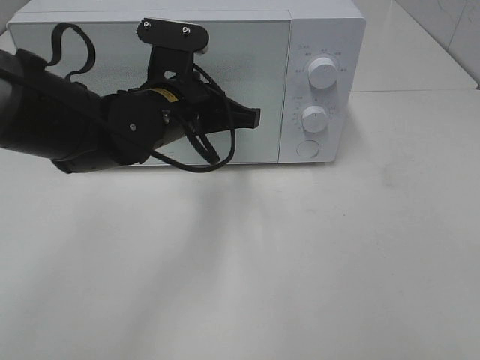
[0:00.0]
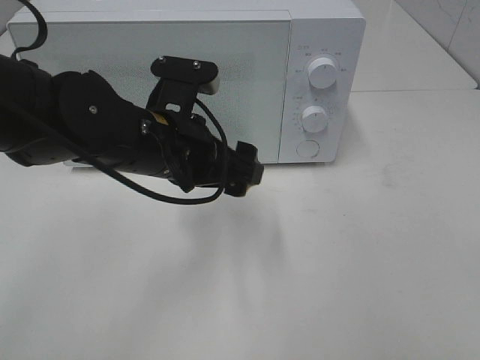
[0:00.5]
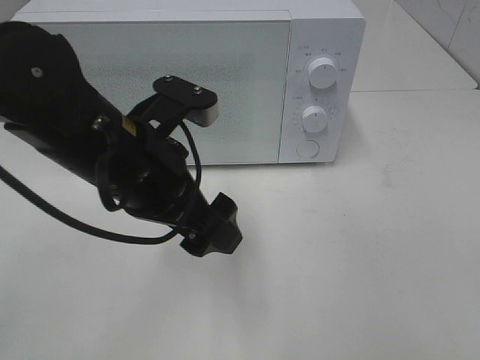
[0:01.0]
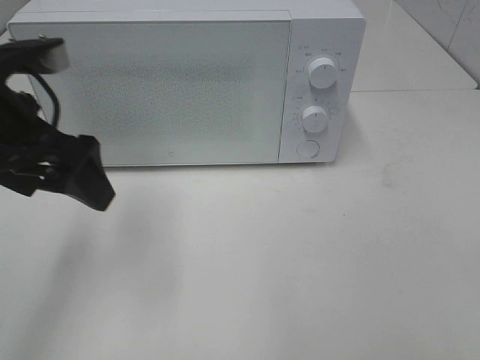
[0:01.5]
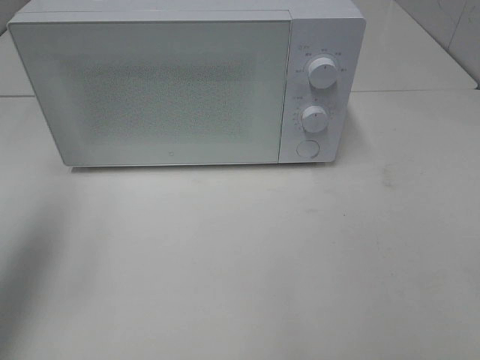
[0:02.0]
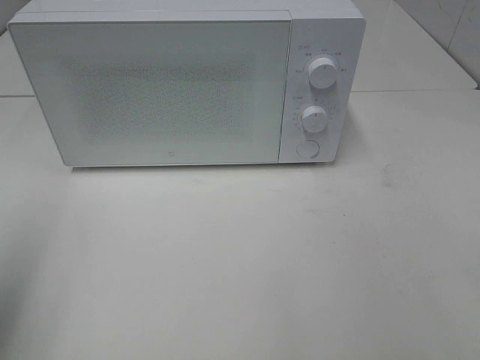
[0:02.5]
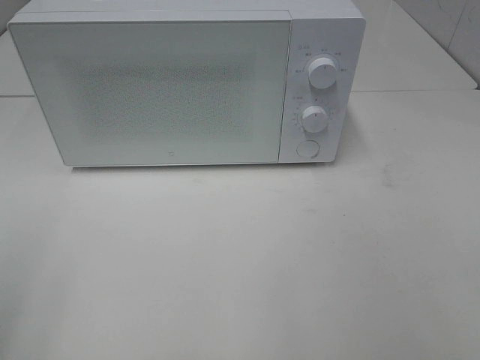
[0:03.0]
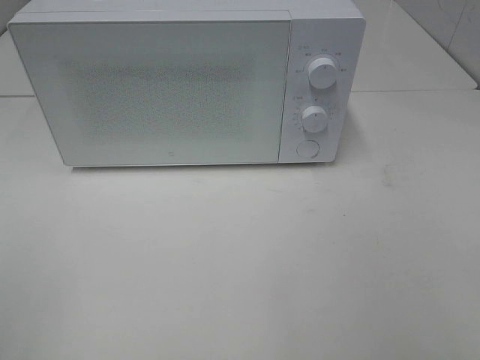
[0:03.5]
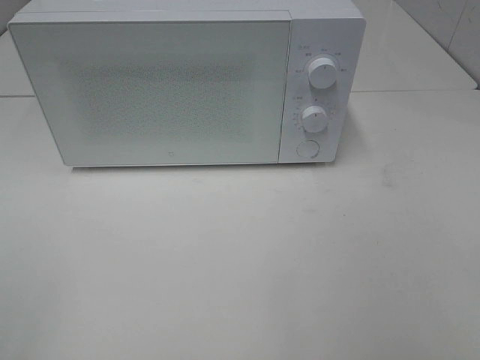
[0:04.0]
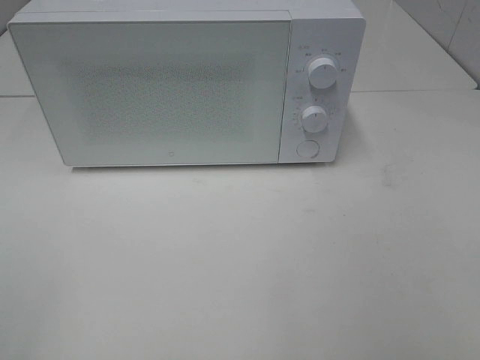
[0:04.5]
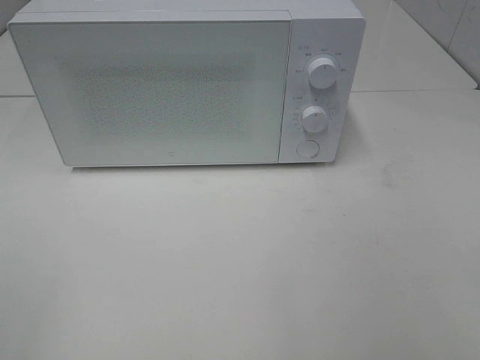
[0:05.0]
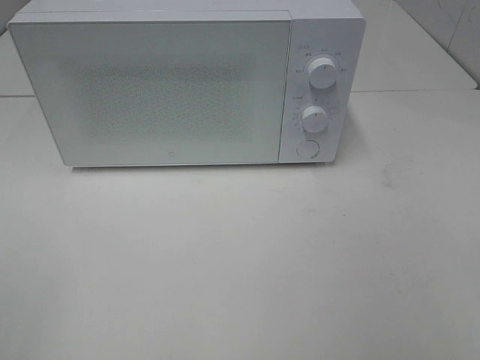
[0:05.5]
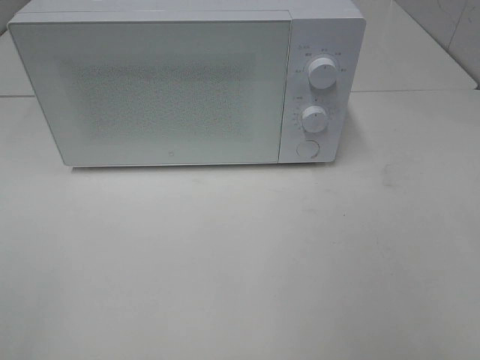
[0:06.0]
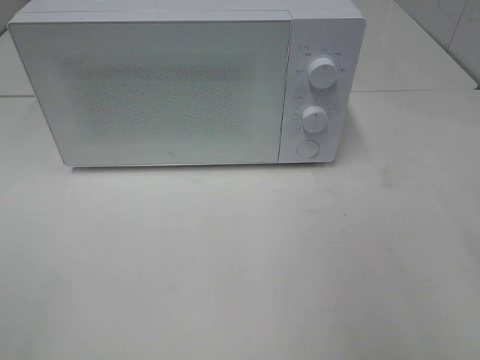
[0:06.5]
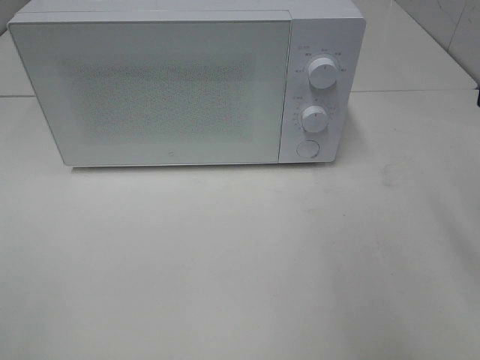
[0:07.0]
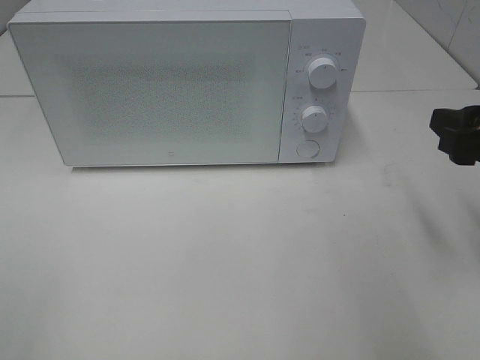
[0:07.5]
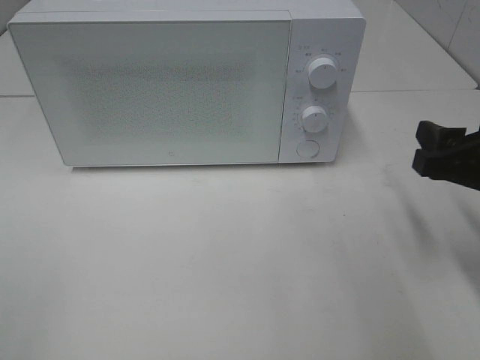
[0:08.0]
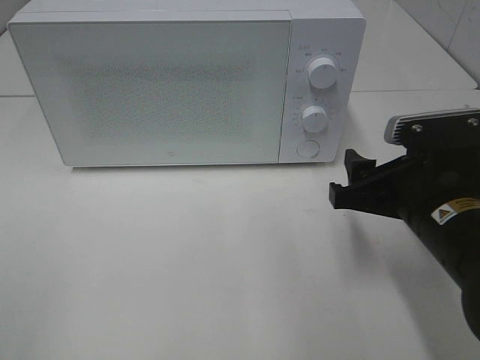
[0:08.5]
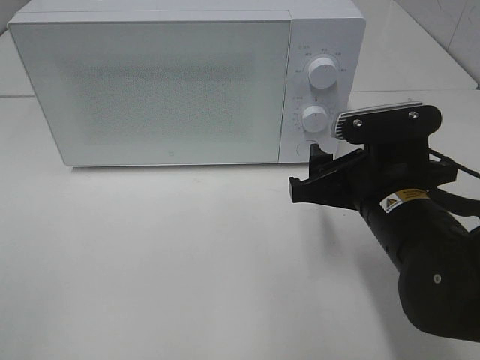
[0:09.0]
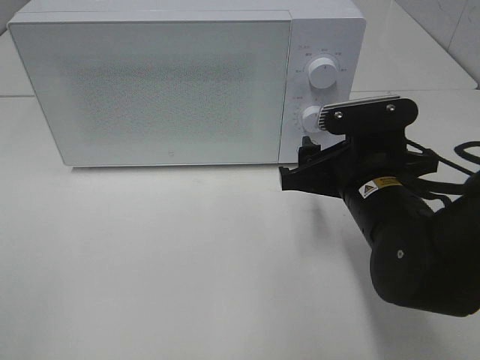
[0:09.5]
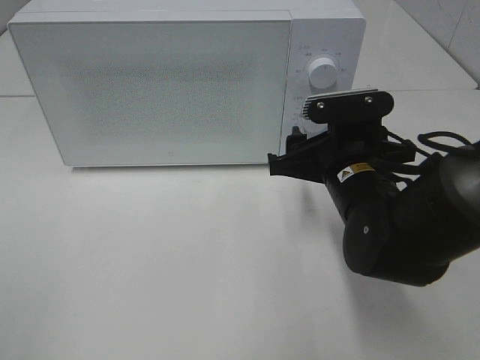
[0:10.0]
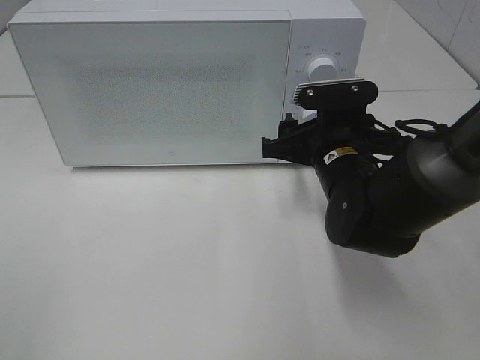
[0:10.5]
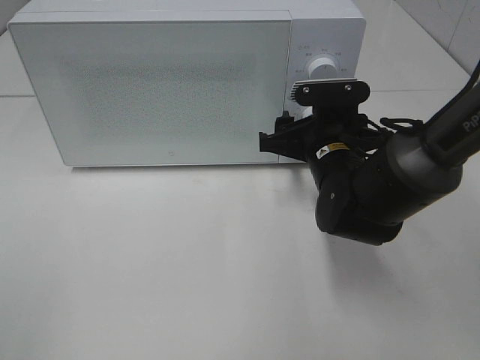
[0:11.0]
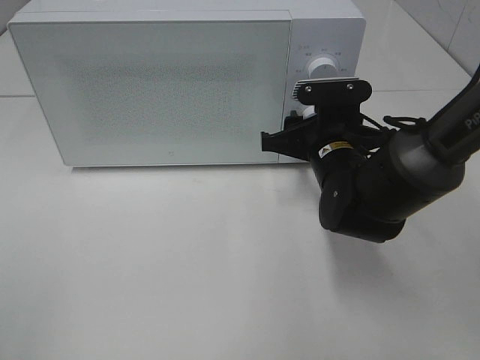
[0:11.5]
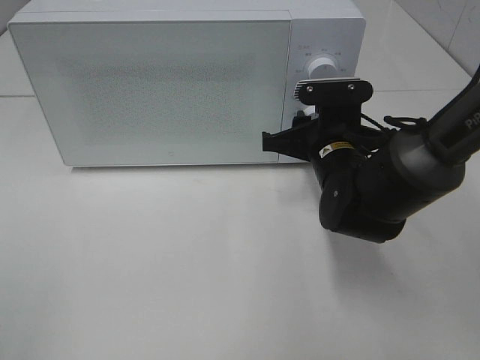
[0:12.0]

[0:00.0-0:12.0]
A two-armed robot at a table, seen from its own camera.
Task of the whole recording: Heat the burger.
0:00.0 to 0:02.0: The left gripper moves to the left, upward and backward, about 30 cm, and opens.
0:02.0 to 0:04.0: The left gripper is displaced backward by approximately 20 cm.
0:06.0 to 0:08.0: The right gripper travels forward and downward by roughly 20 cm.
0:08.0 to 0:10.0: The right gripper is displaced to the left and forward by some 15 cm.
0:10.0 to 0:12.0: The right gripper shifts about 5 cm forward.

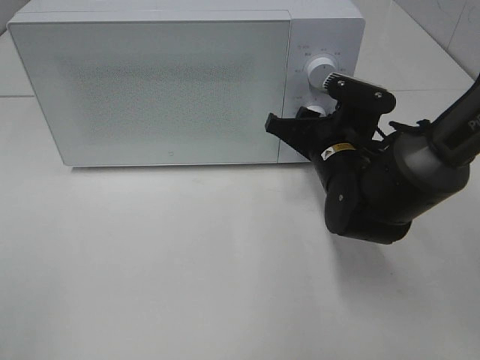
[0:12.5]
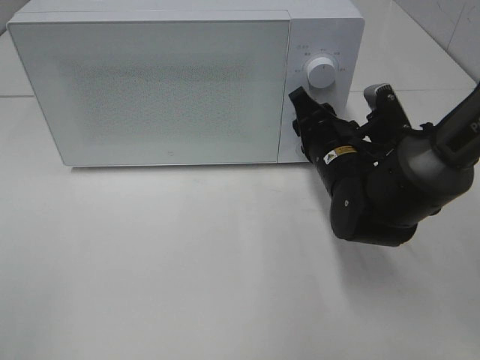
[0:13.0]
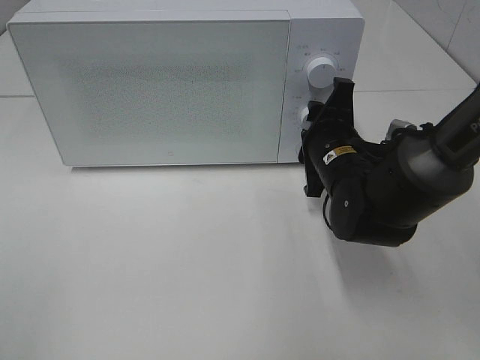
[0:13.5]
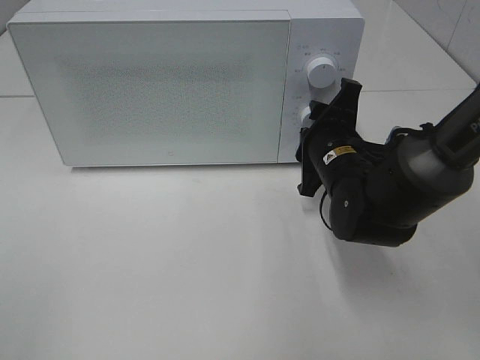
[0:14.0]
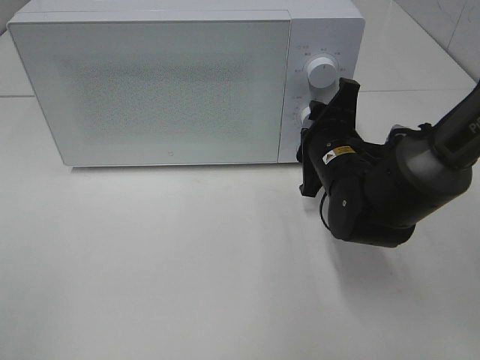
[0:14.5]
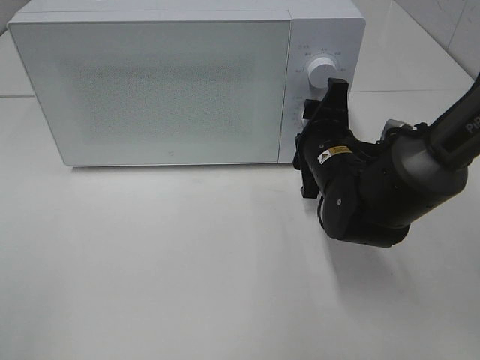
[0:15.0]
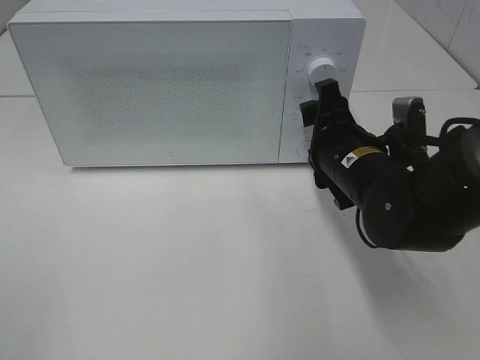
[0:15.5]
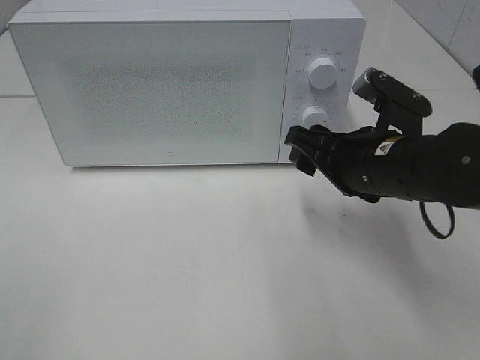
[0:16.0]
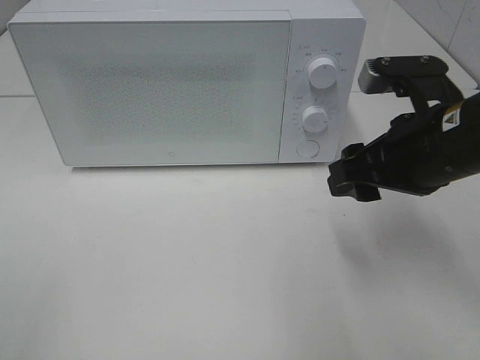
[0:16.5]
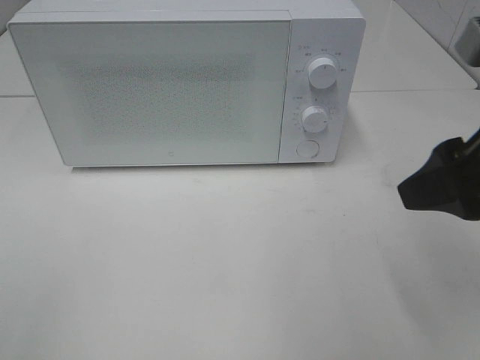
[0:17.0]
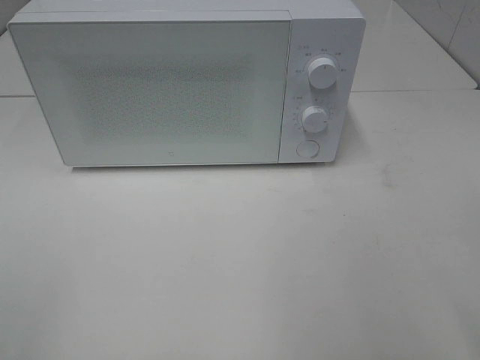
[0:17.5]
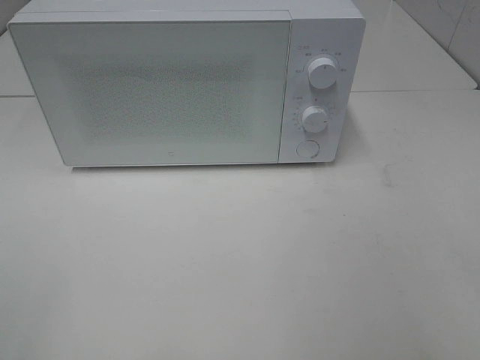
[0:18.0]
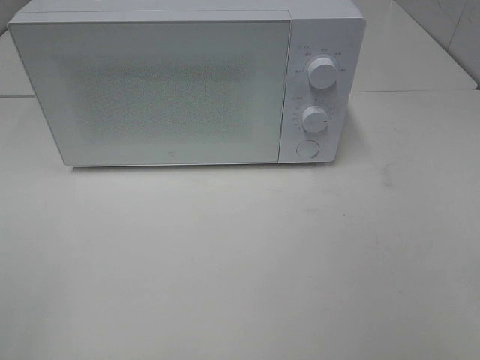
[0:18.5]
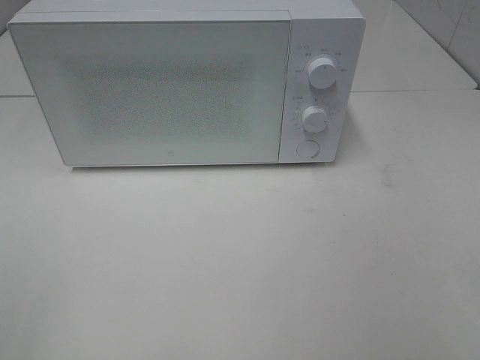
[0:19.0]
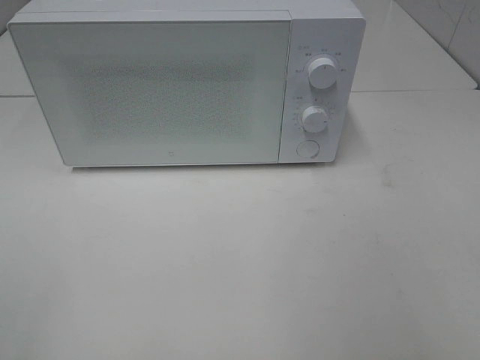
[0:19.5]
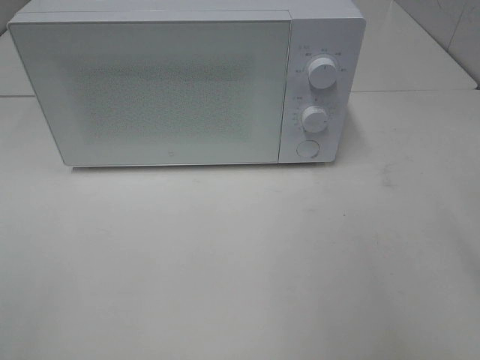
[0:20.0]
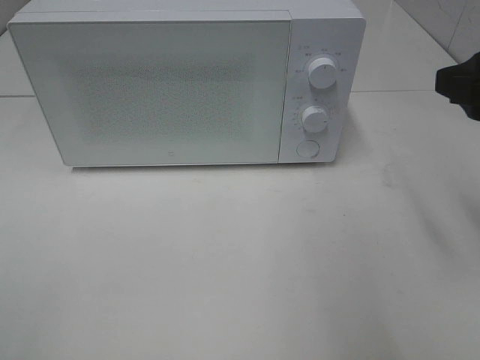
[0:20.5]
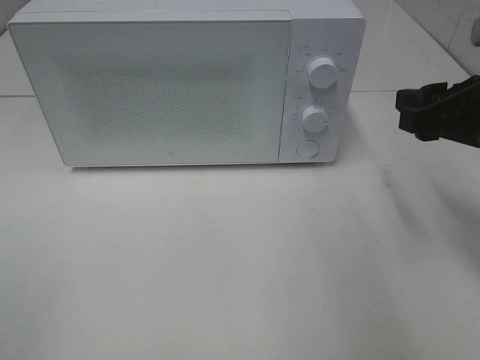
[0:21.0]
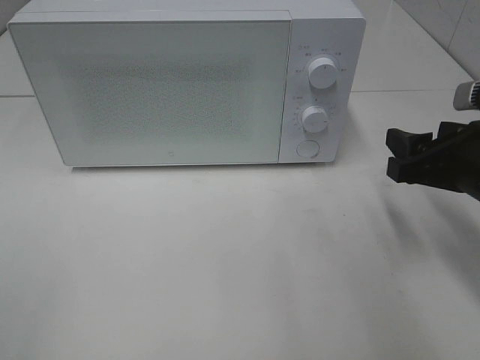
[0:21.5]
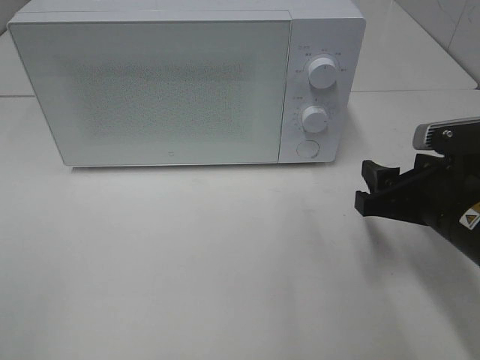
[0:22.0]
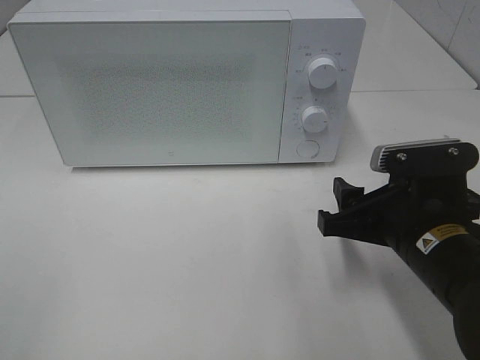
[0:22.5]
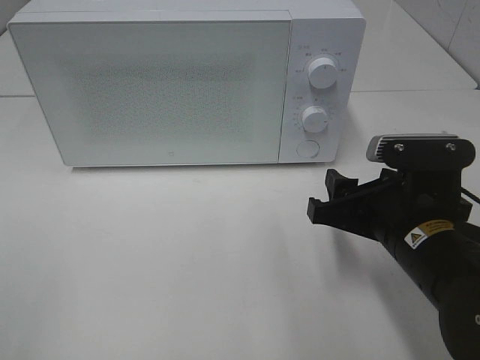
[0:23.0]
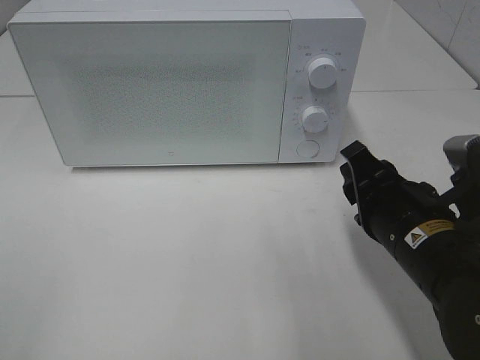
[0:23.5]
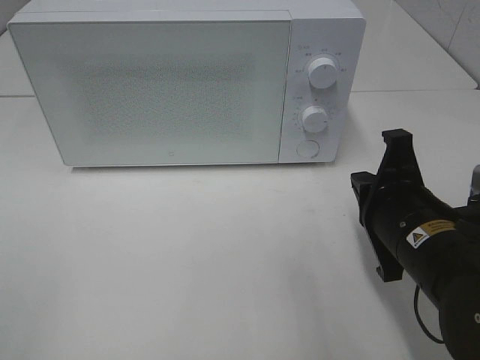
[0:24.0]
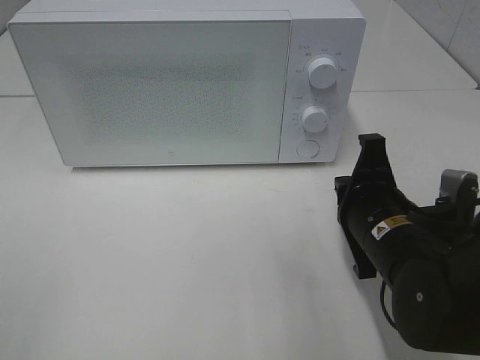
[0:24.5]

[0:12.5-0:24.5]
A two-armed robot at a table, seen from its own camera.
Task of the whole recording: Heat the burger.
Step, 0:12.5 to 0:15.0: Right hand: twist timer button.
0:14.5 to 0:16.5: The right gripper is displaced upward, backward and to the right by approximately 15 cm.
0:16.5 to 0:18.5: The right gripper moves backward and to the right, about 25 cm.
0:18.5 to 0:20.5: The right gripper is displaced forward by roughly 20 cm.
0:20.5 to 0:22.5: The right gripper shifts roughly 15 cm downward and to the left.
0:22.5 to 0:24.5: The right gripper closes its fingers.

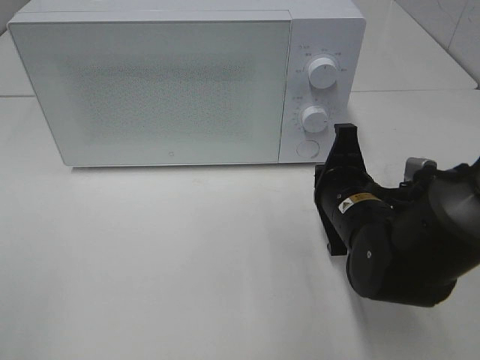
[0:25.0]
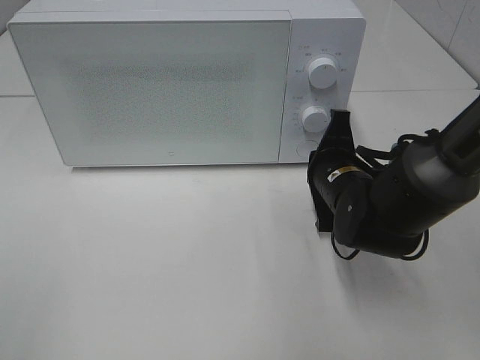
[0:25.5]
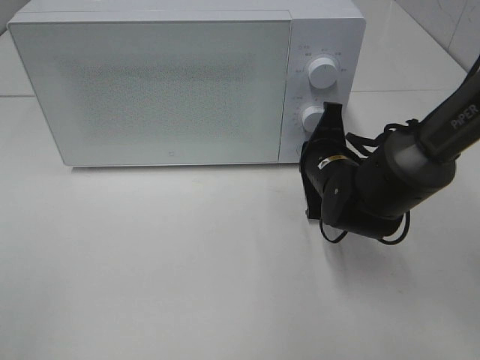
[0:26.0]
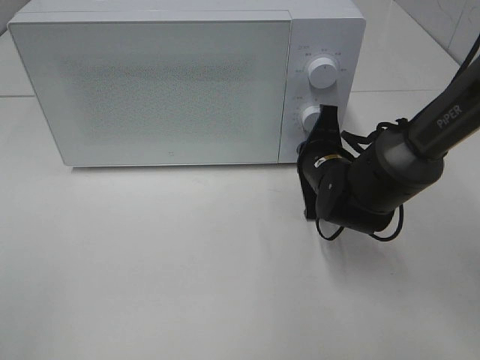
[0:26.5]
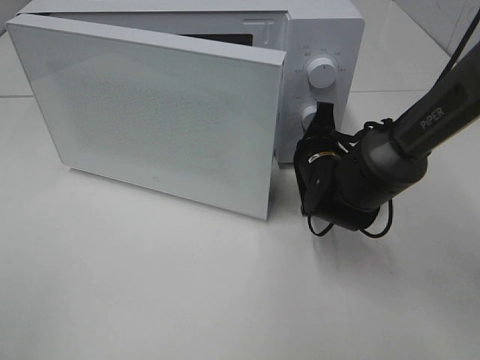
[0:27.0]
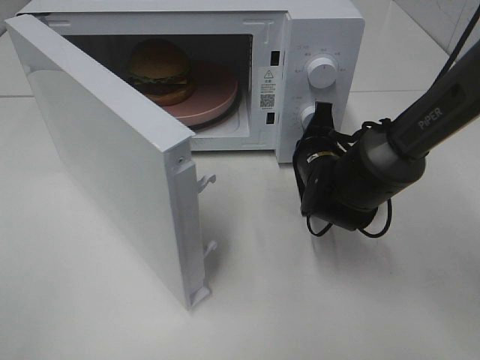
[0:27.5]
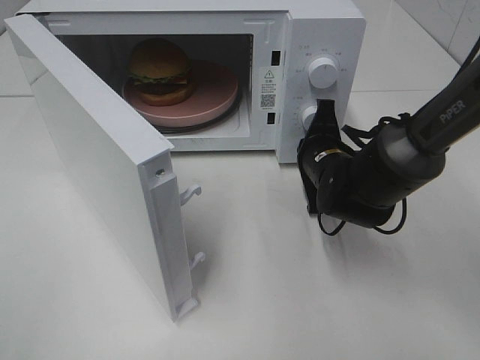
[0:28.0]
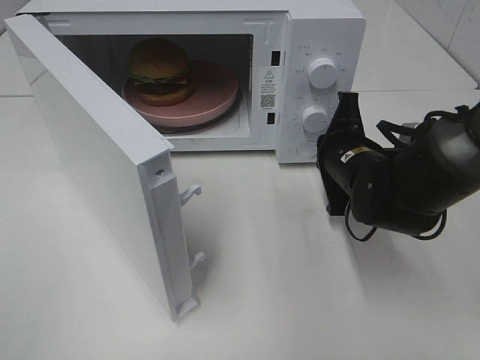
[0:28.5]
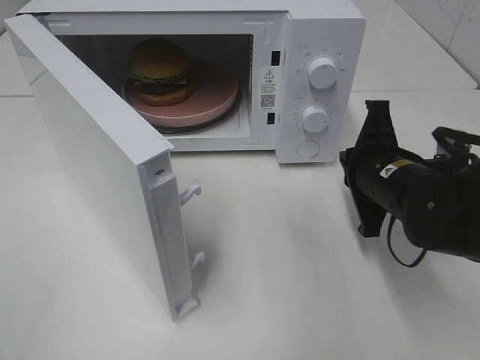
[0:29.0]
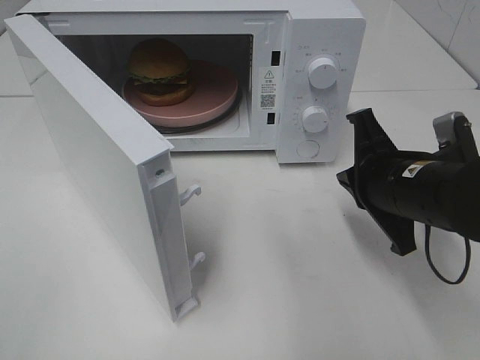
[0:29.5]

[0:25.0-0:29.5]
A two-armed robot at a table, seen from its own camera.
Task of the whole recording: Heat the burger.
Step, 0:25.0 to 0:28.5: Right hand: press the switch.
0:25.0 to 0:27.0: The right gripper travels forward by approximately 10 cm.
0:27.0 to 0:29.5: The right gripper shifts about 15 cm backward and upward.
